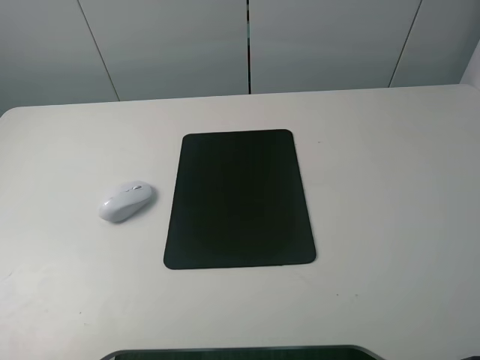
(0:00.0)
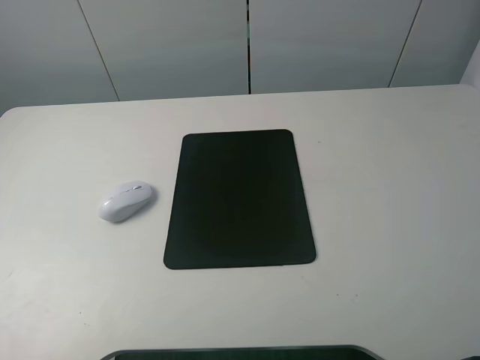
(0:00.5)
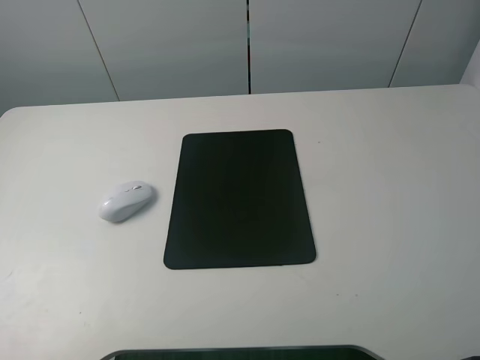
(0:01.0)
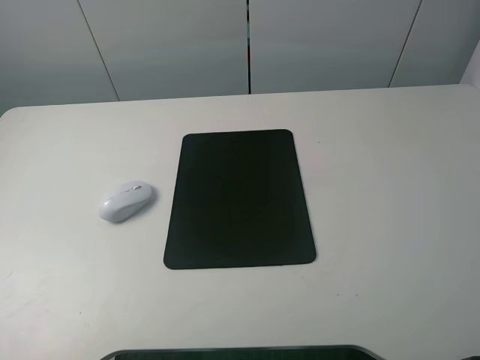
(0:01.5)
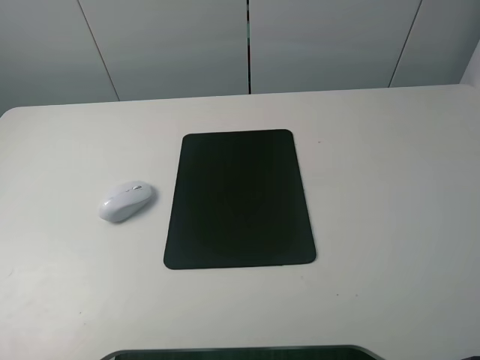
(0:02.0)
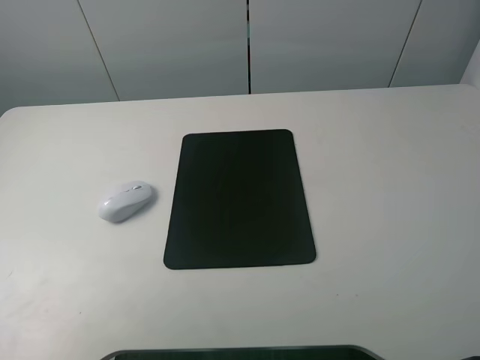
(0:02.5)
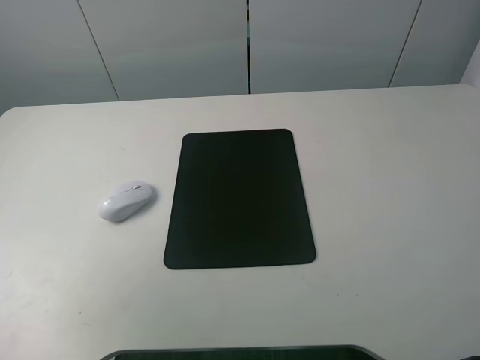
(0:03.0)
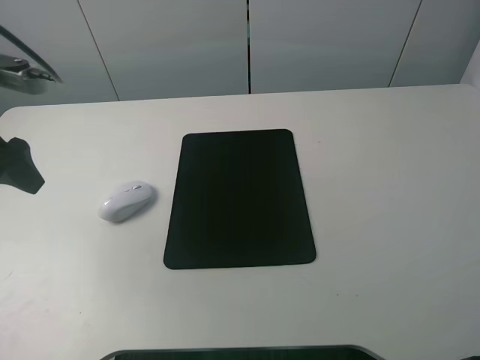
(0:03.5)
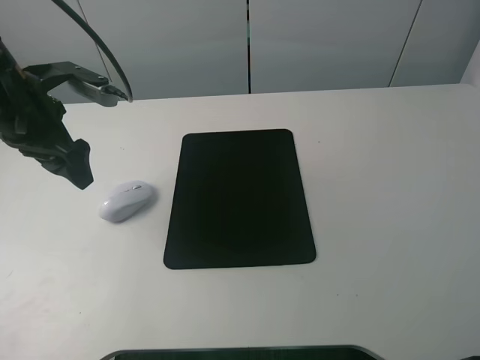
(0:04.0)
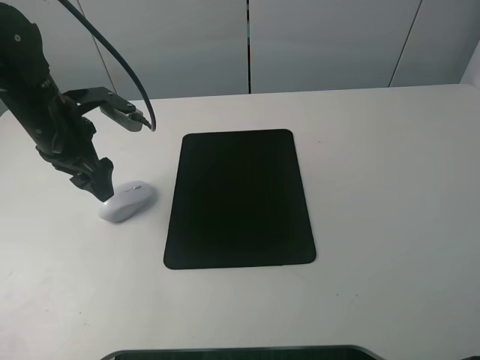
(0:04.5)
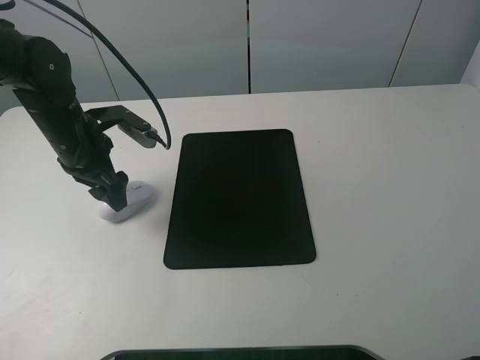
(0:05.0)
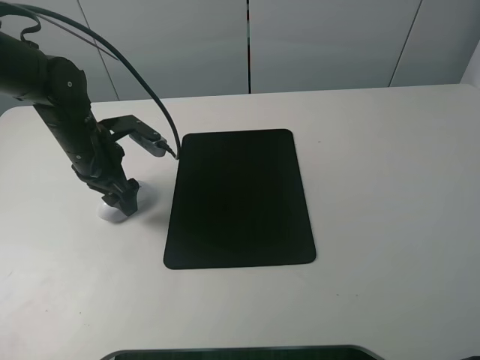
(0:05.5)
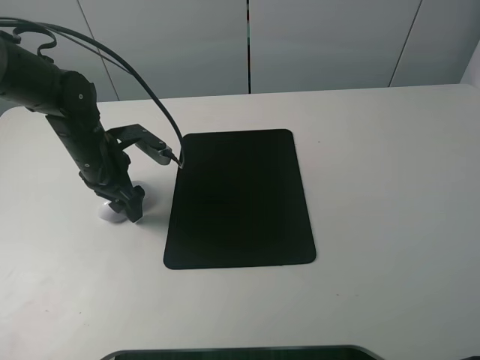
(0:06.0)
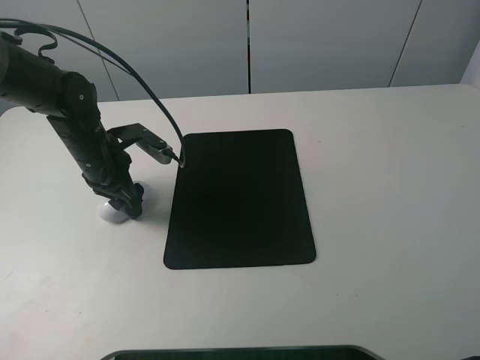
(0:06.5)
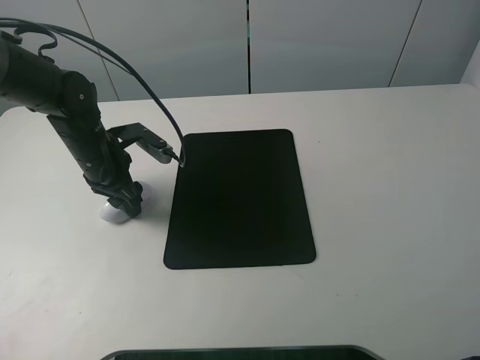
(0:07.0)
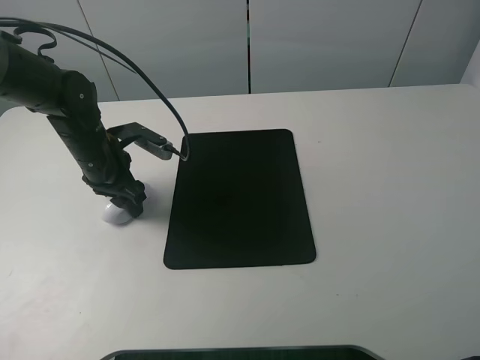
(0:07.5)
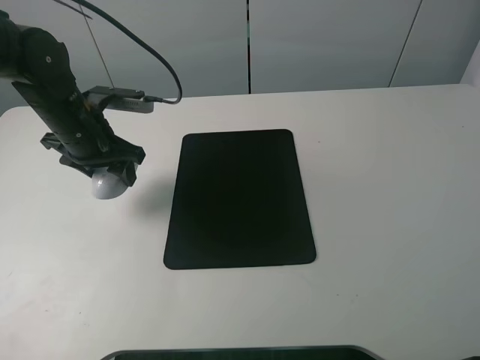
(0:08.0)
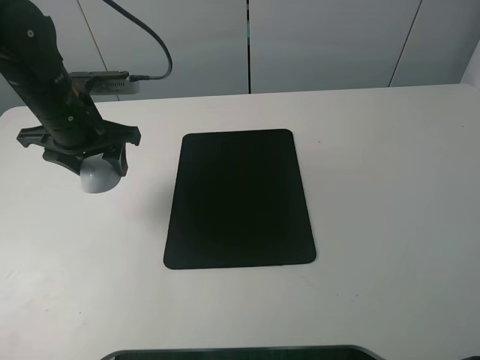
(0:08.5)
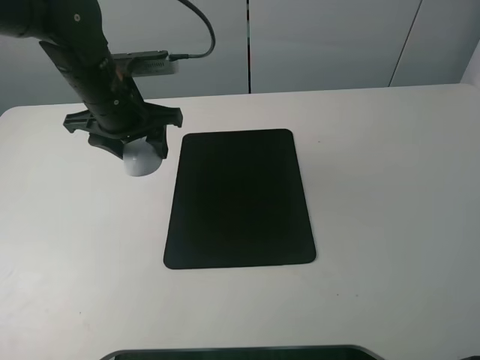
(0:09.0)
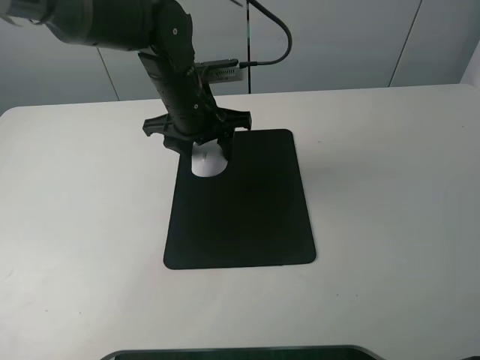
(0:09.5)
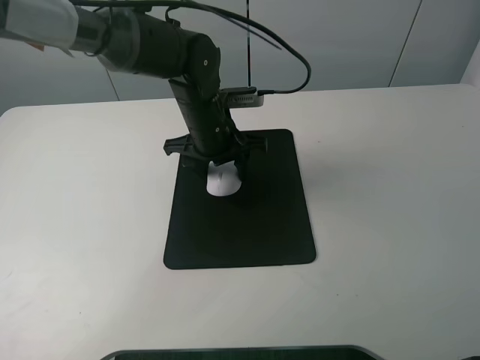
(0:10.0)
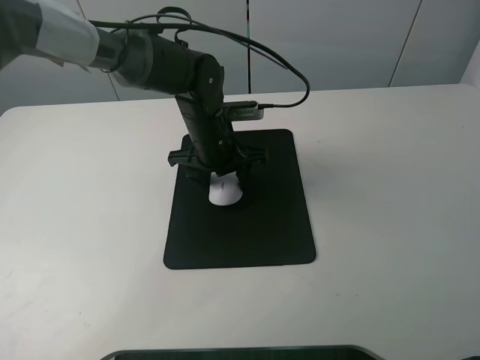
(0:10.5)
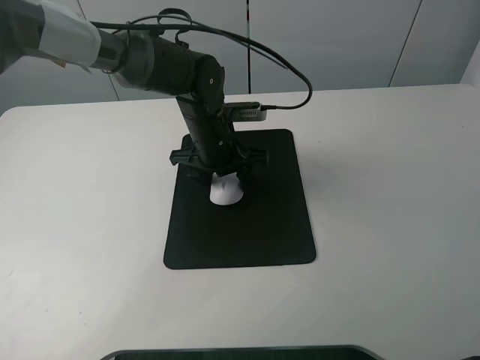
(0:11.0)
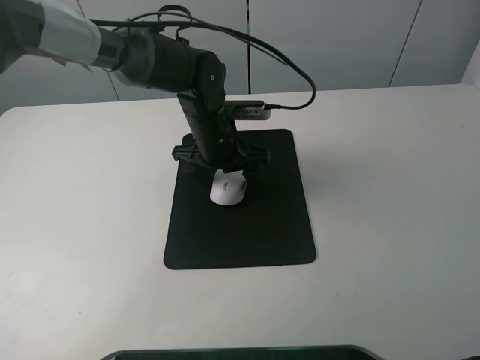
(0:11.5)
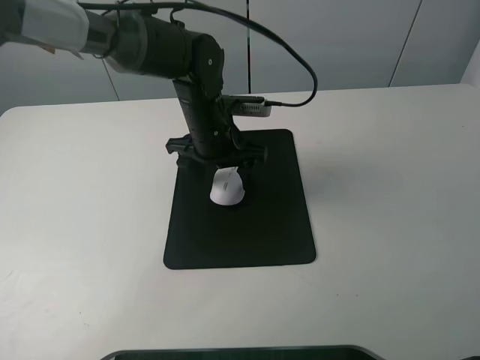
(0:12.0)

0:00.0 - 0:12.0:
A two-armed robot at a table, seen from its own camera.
Step, 0:00.0 - 0:07.0: Grasp the mouse with the left gripper.
Step, 0:07.5 - 0:11.0: Place the mouse on the mouse mat with the left gripper.
0:02.0 - 0:04.0: The left gripper goes approximately 30 cm forward.
0:04.0 - 0:06.0: The left gripper shifts some 10 cm downward.
0:06.0 - 0:08.0: The left gripper closes.
0:08.0 - 0:10.0: The left gripper moves to the right, some 15 cm.
0:10.0 - 0:12.0: The left gripper opens.

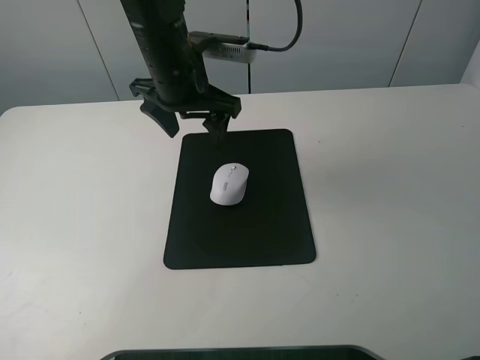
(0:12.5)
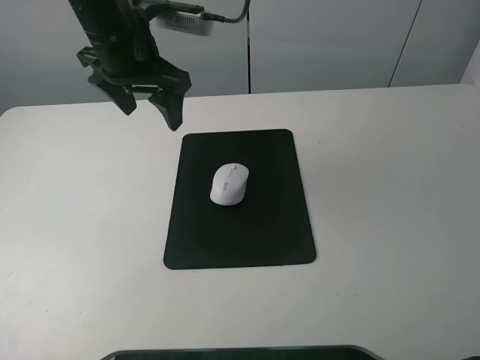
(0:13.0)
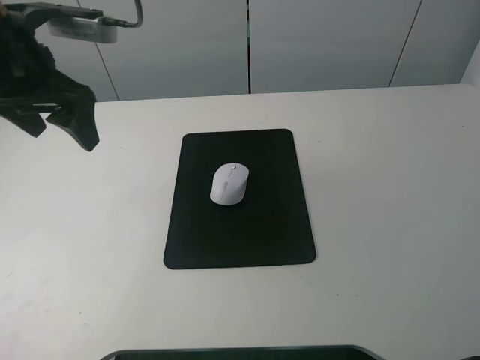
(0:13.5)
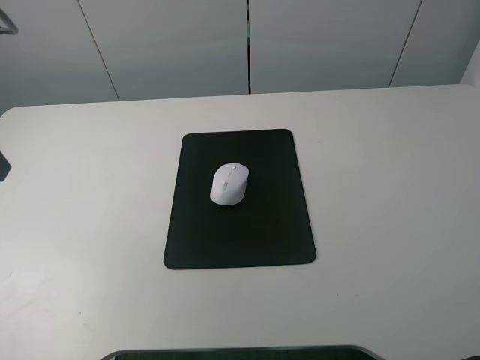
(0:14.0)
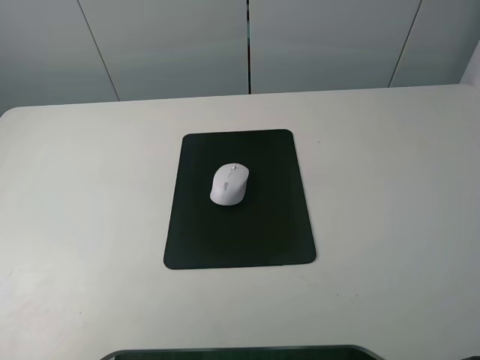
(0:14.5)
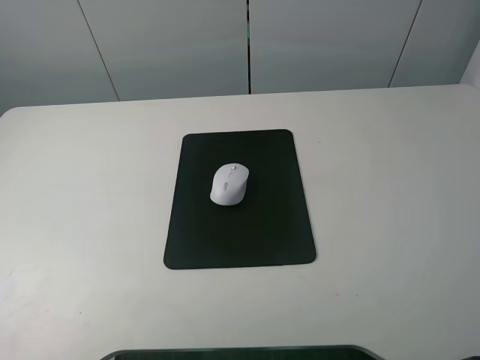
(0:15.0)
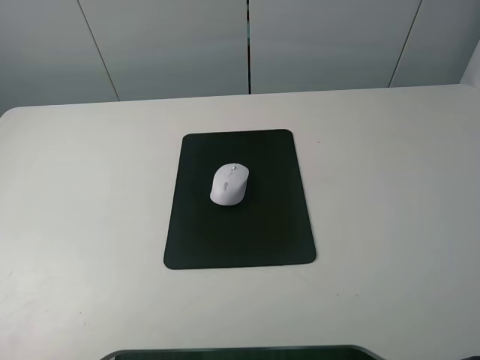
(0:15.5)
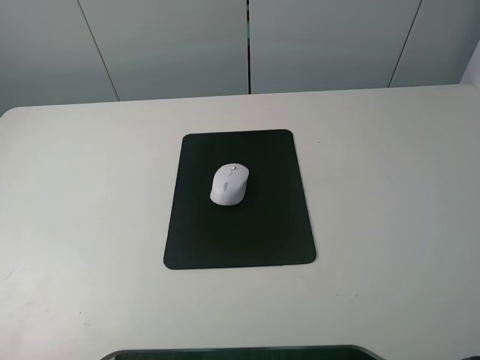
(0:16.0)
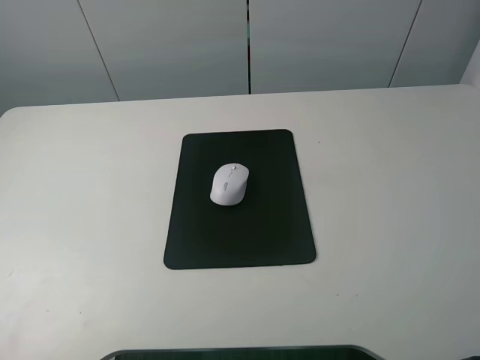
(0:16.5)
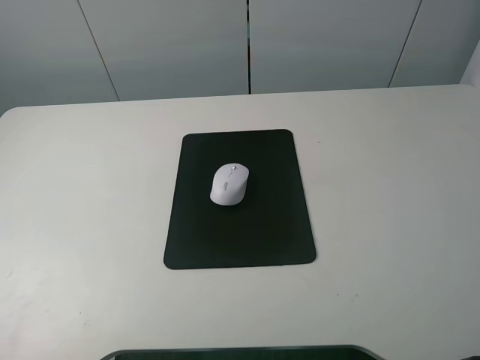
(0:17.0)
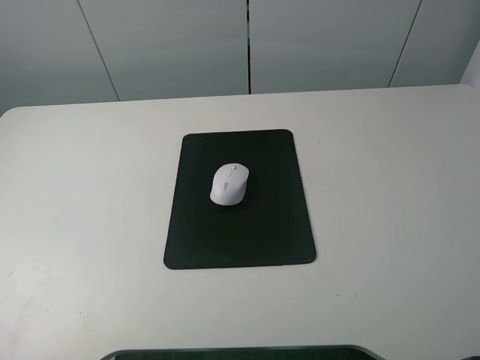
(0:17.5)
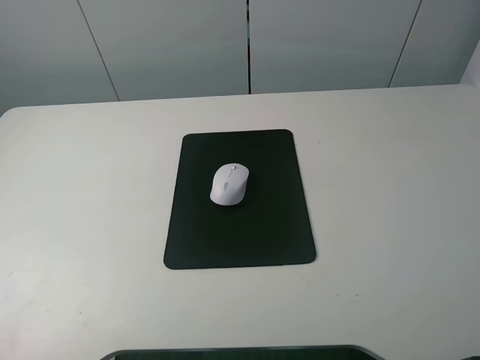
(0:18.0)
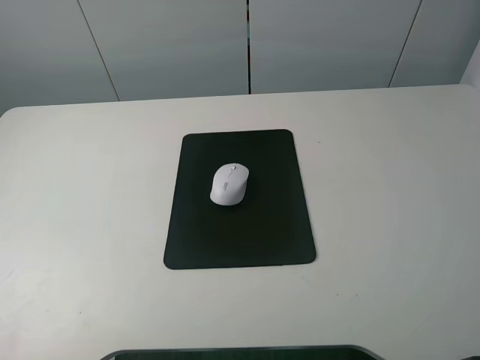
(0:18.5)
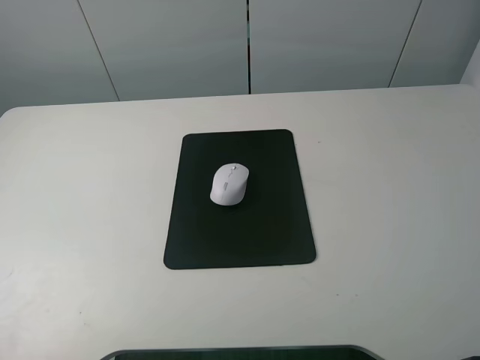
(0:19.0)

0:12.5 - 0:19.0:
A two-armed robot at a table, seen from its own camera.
0:12.5 - 0:14.5: The left gripper moves backward, to the left and upward, roughly 35 cm.
0:17.0 - 0:19.0: Neither gripper changes place.

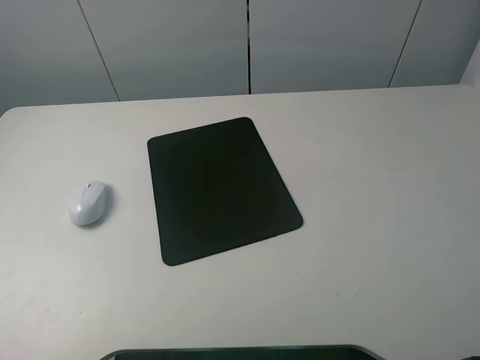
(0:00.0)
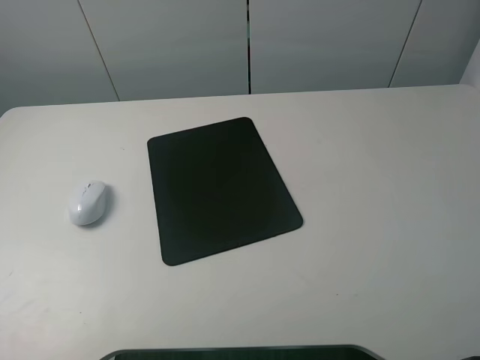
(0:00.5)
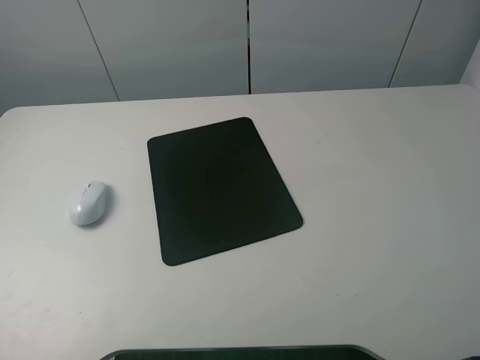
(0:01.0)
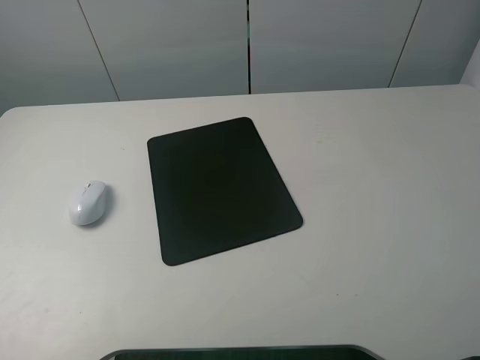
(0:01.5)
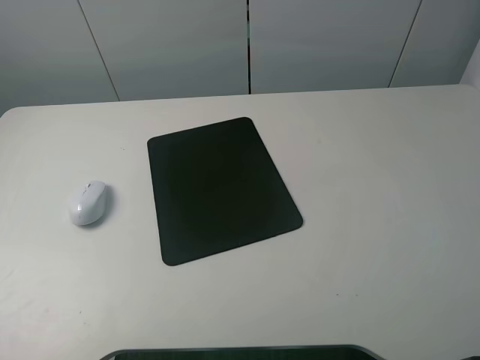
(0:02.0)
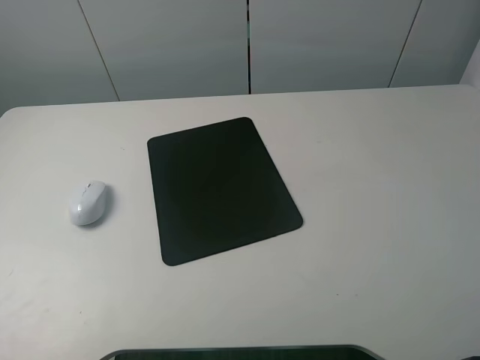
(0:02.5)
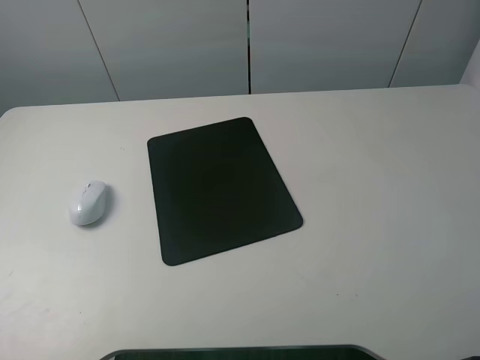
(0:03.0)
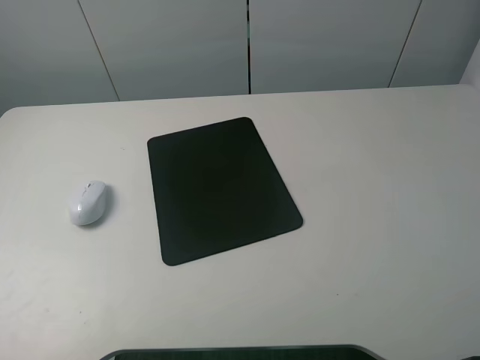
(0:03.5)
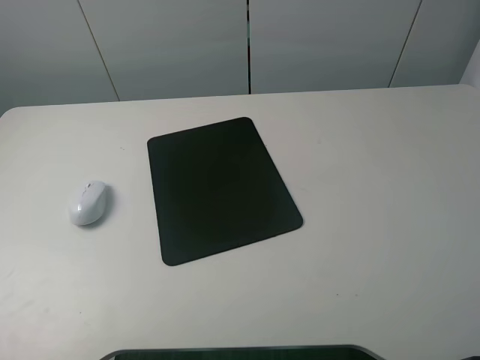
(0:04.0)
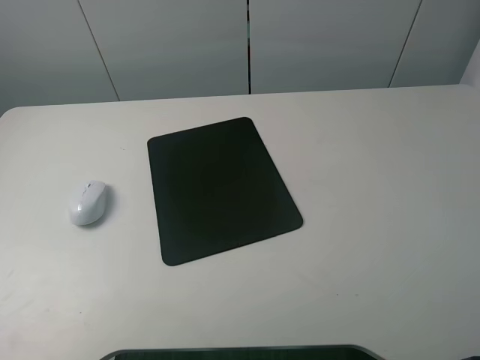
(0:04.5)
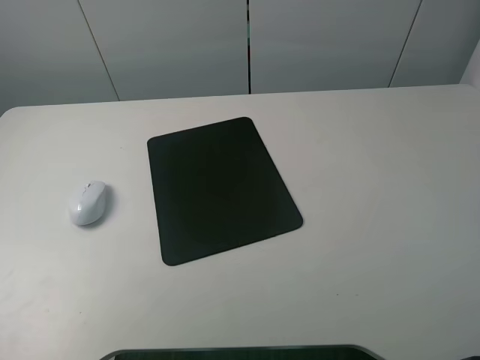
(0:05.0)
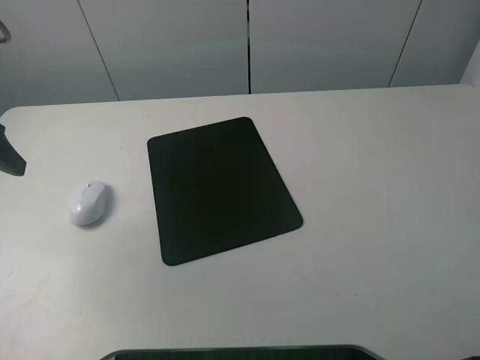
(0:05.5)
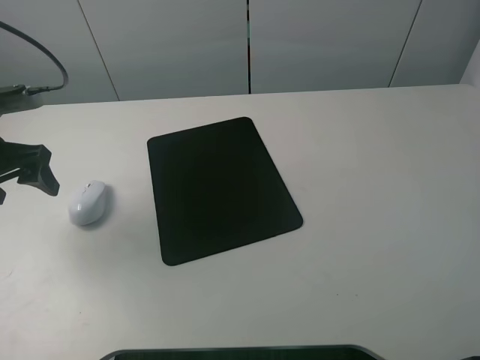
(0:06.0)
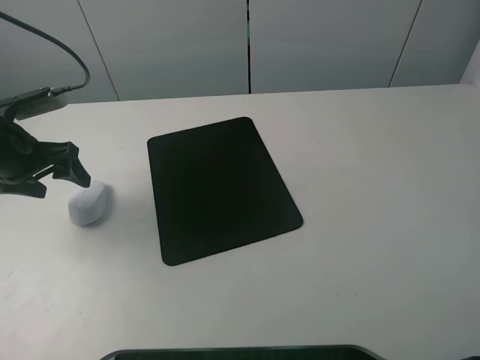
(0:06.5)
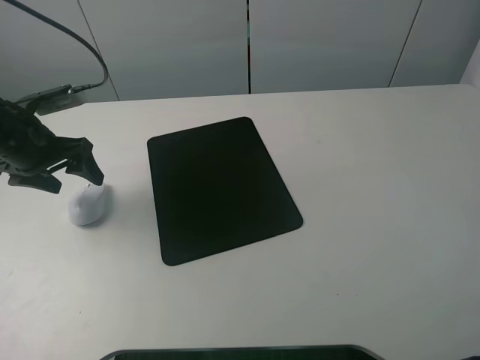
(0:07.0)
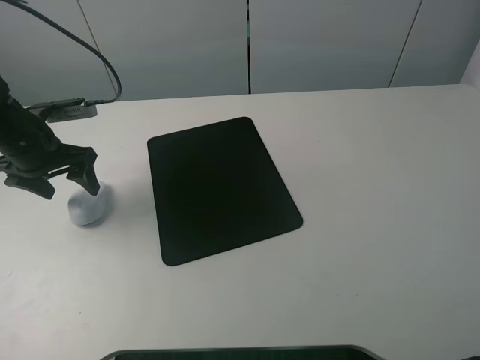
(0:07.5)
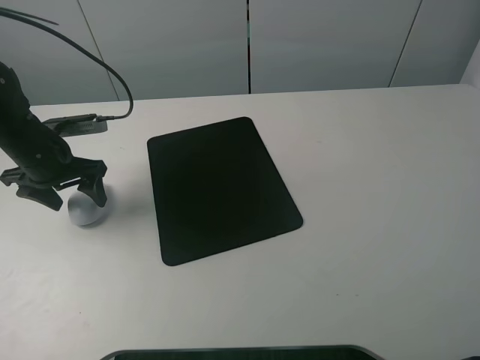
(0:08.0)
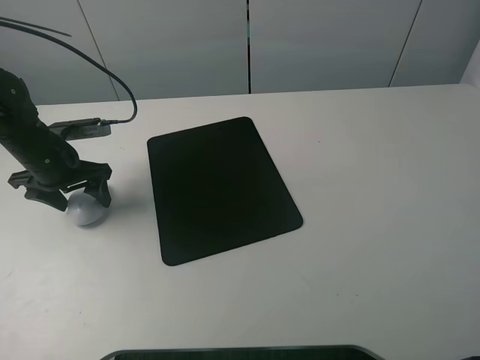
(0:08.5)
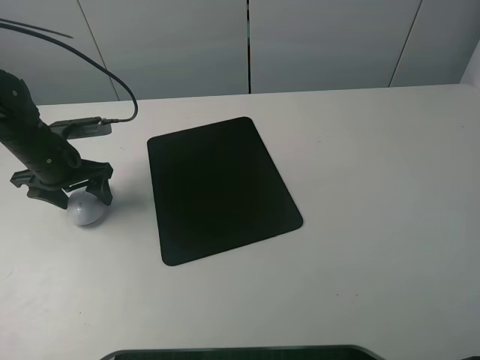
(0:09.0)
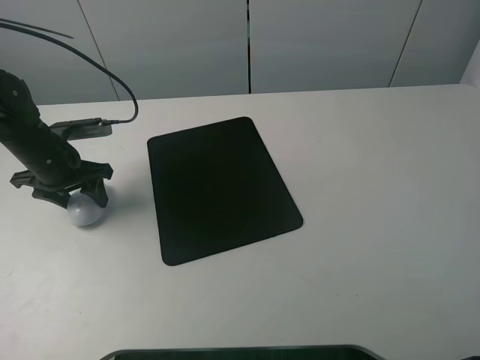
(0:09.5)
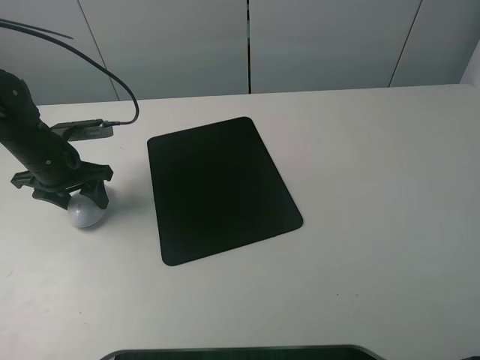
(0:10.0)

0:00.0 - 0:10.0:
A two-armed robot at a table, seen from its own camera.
Step, 0:00.0 - 0:09.5: Grasp the mouse with the left gripper.
0:00.0 - 0:04.0: Both grippers stay about where they are.
0:04.0 - 0:06.0: The left gripper moves forward, some 25 cm.
0:06.0 - 0:08.0: The left gripper moves downward and forward, about 10 cm.
0:08.0 - 0:10.0: The left gripper closes.
